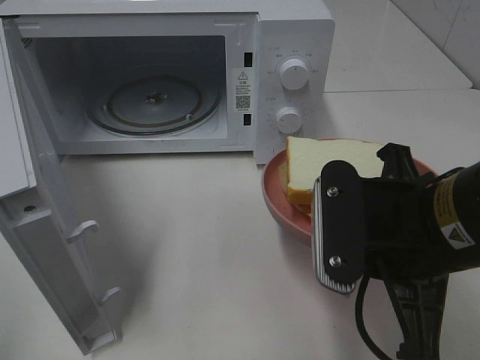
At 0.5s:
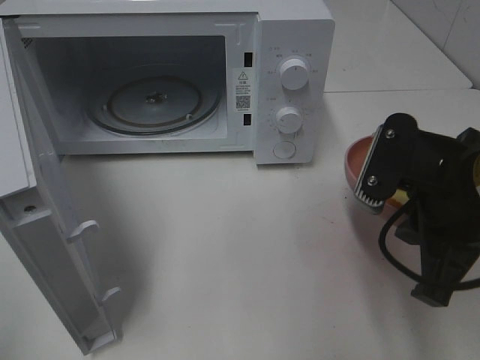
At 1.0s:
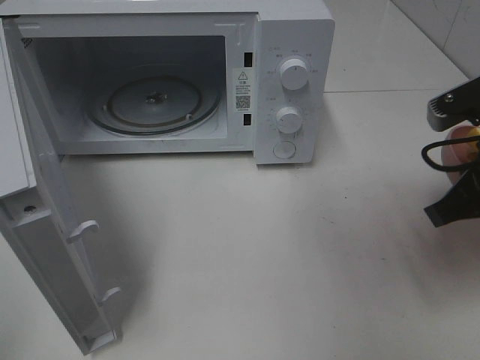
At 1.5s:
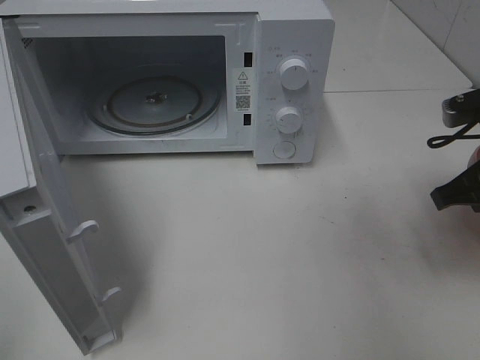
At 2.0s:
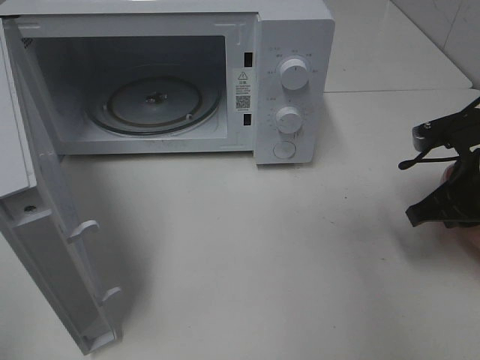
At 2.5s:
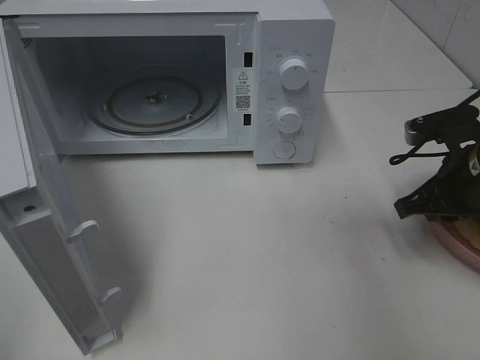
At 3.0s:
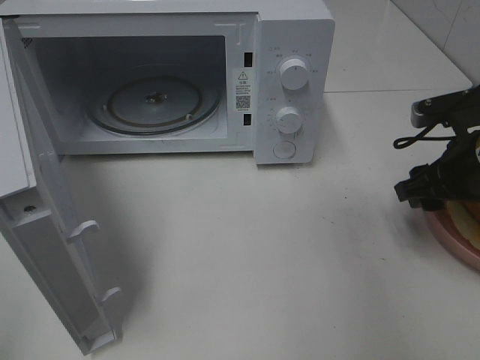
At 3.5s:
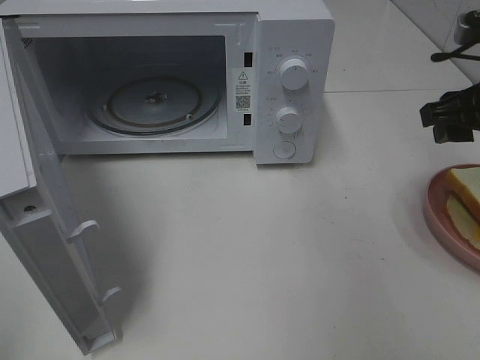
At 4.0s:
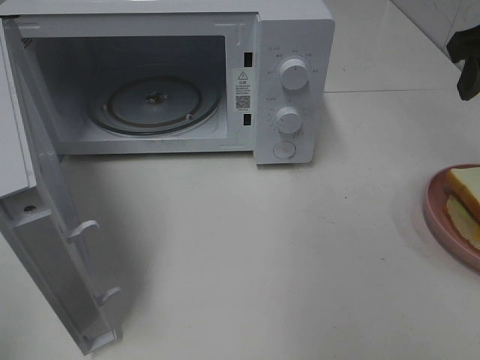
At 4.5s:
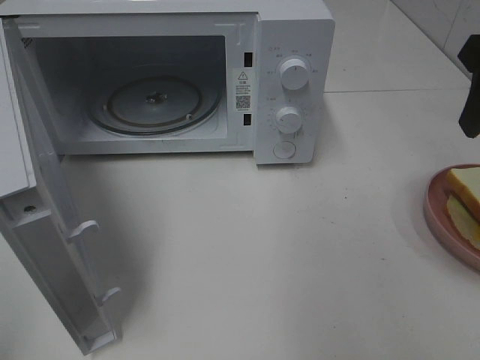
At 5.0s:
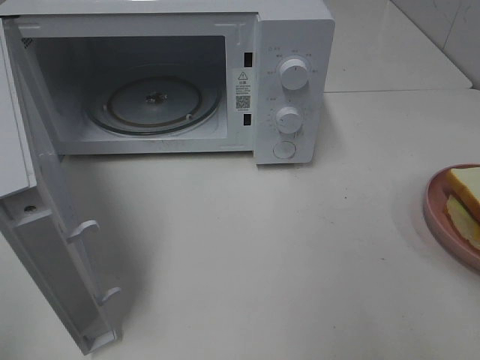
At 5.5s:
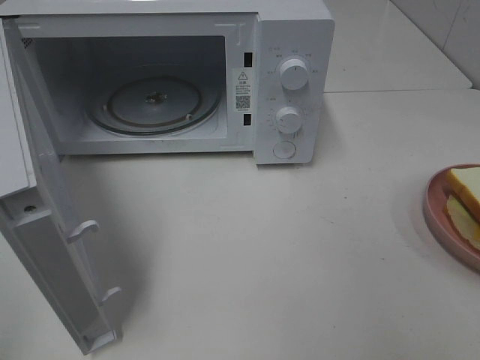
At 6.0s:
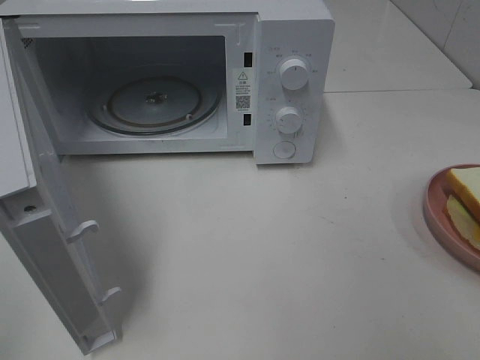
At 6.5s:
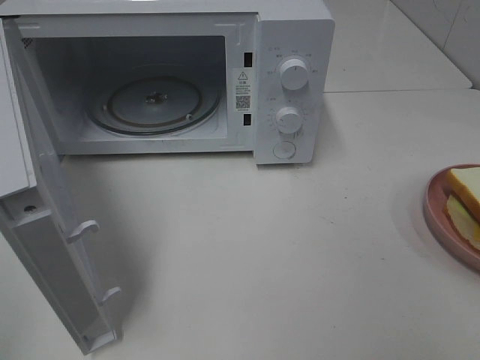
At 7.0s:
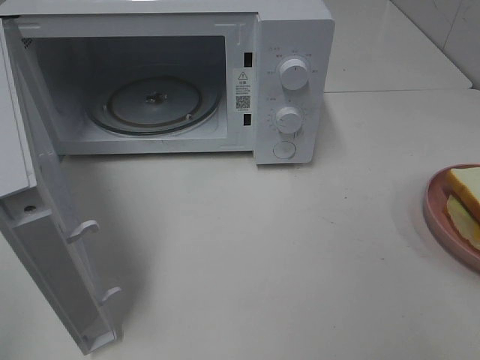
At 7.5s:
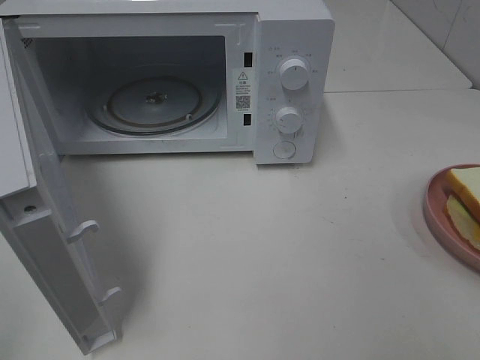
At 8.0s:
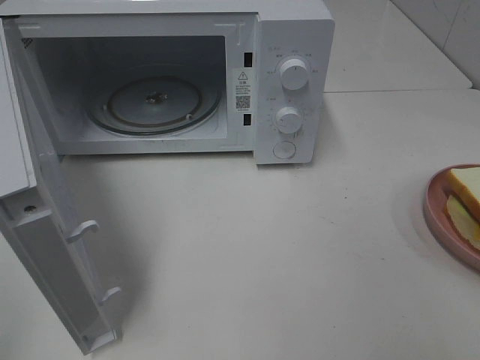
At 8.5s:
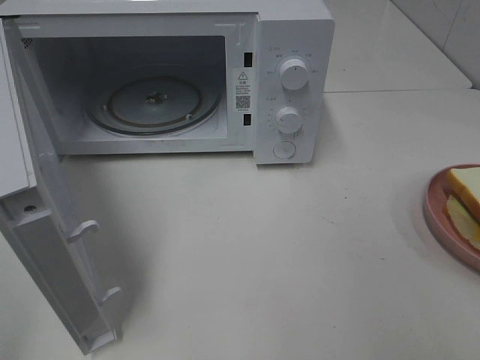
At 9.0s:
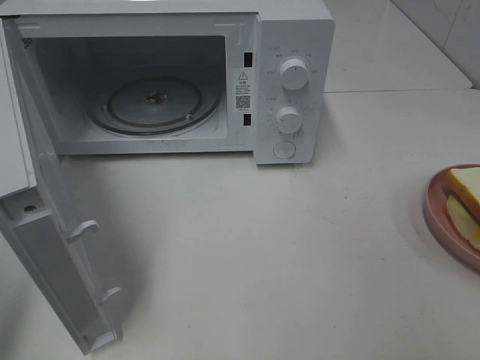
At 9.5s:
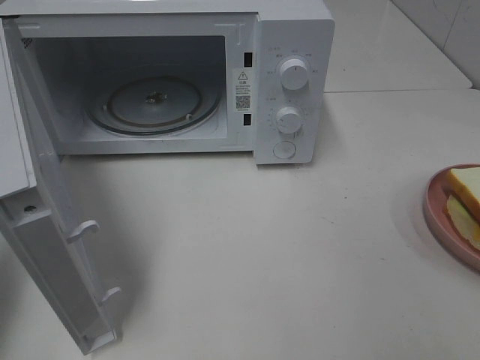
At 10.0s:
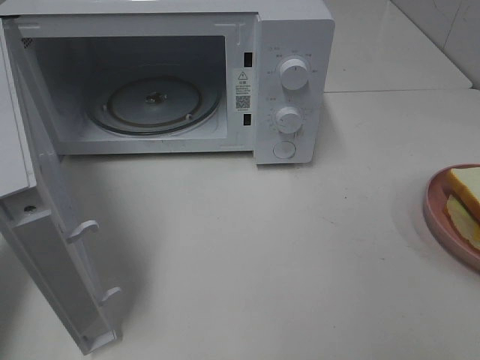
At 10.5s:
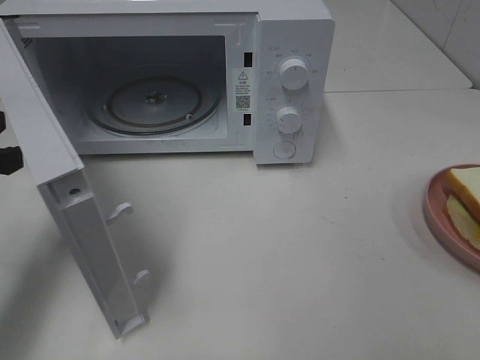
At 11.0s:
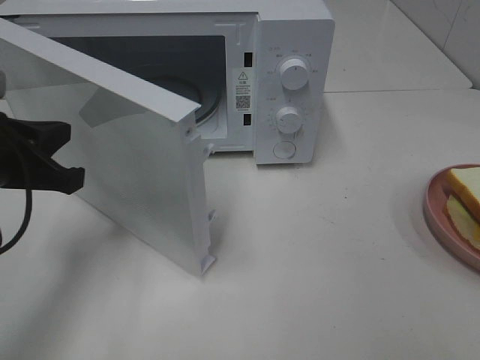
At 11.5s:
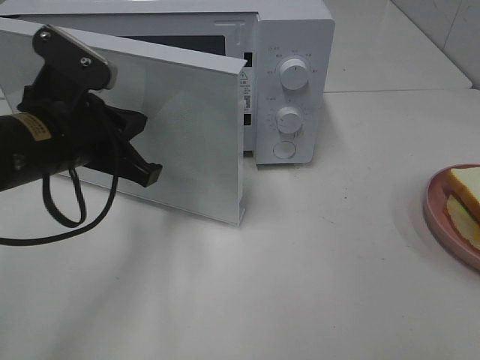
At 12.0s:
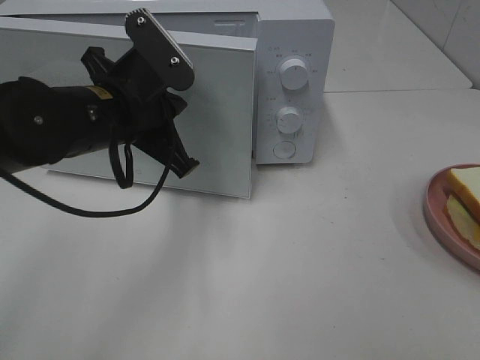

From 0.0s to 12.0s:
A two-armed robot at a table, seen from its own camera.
Task of the whole recording: Heat Sandwich.
Step, from 0.0s to 3.5s: Right hand: place the plate on the table.
From 0.0s to 2.0s: The right gripper heads to the right, forward and downward, covering roughly 20 cm.
From 2.0s to 4.0s: The right gripper shifts about 20 cm upward, and opens up.
From 4.0s to 6.0s: The right gripper travels backward by about 25 cm.
From 8.0s to 10.0s: The left gripper is displaced forward by approximately 20 cm, and closes its fingers.
From 10.0s to 12.0s: The left gripper shifts roughly 20 cm to the right.

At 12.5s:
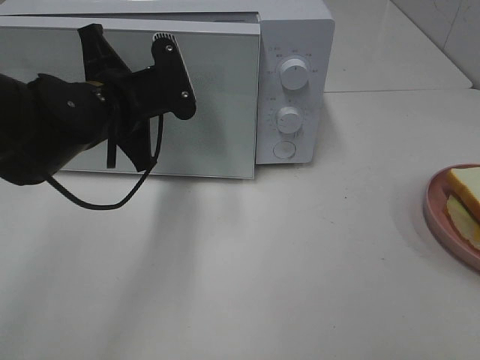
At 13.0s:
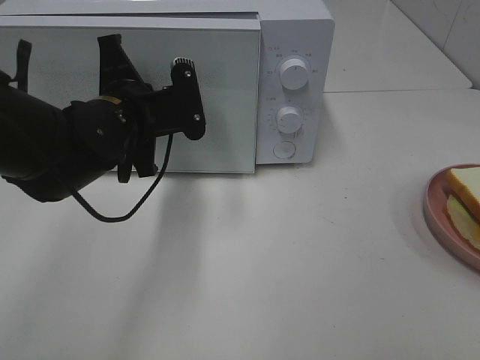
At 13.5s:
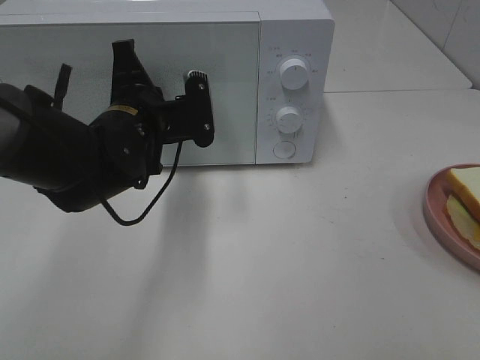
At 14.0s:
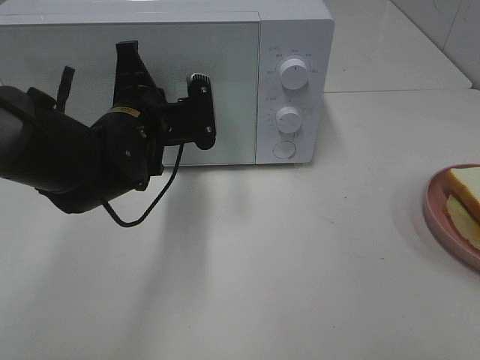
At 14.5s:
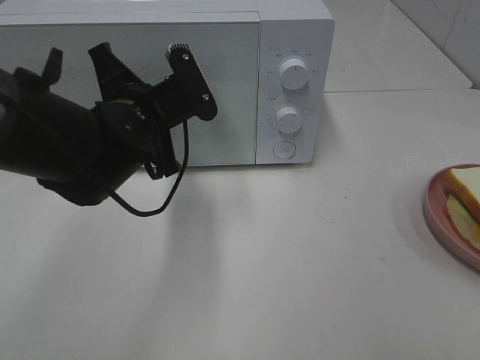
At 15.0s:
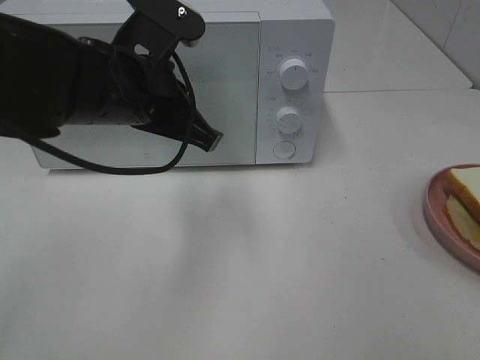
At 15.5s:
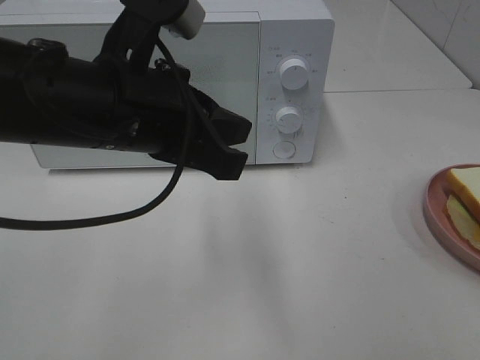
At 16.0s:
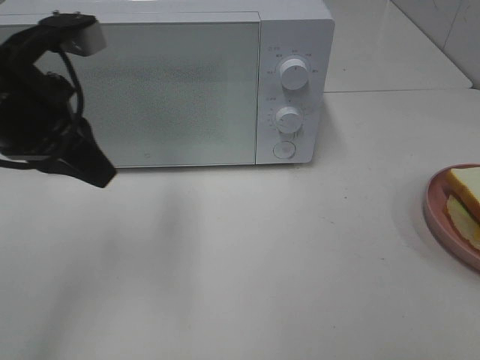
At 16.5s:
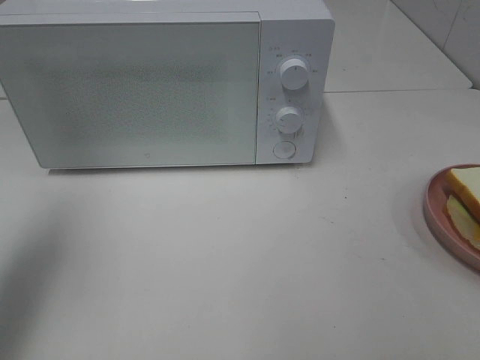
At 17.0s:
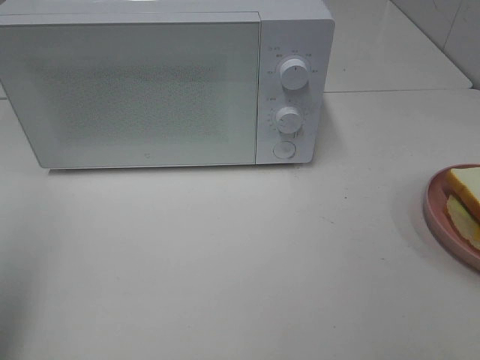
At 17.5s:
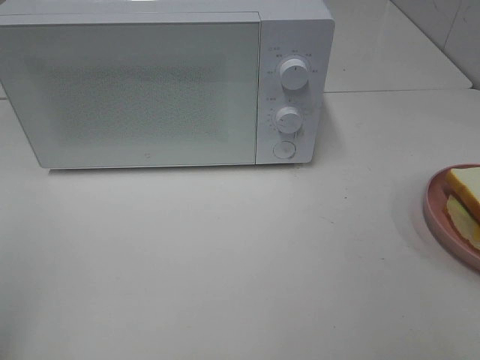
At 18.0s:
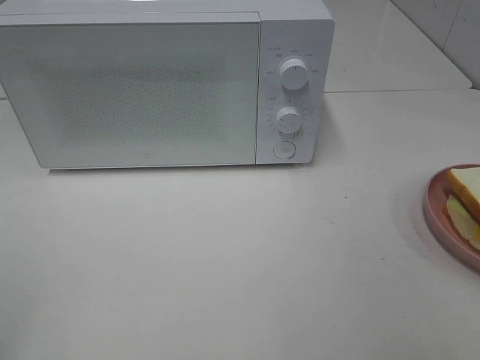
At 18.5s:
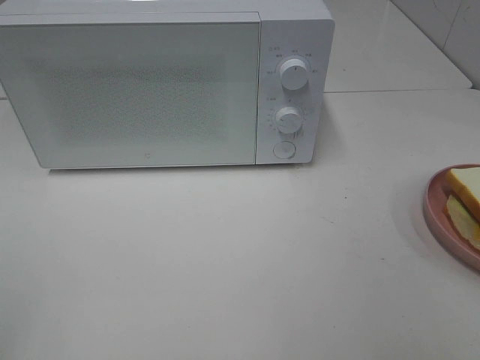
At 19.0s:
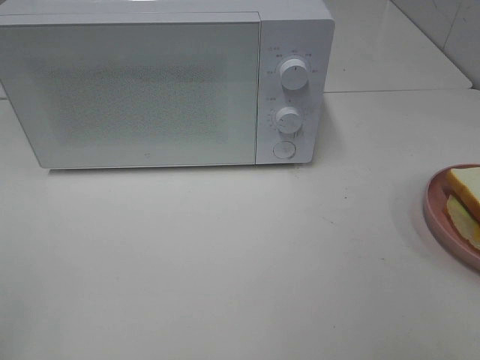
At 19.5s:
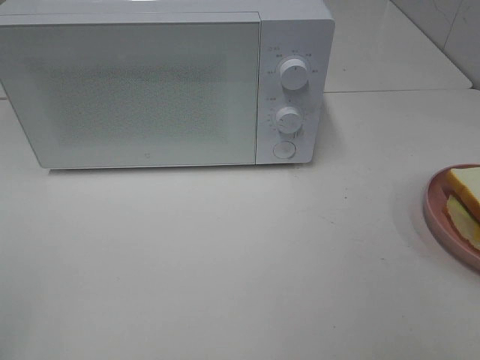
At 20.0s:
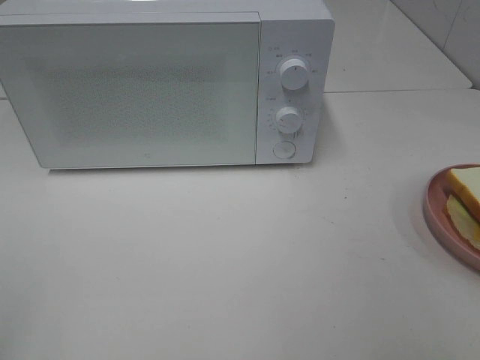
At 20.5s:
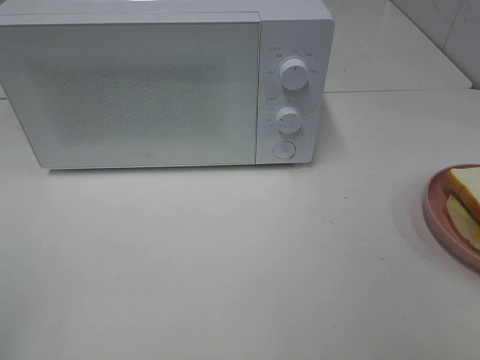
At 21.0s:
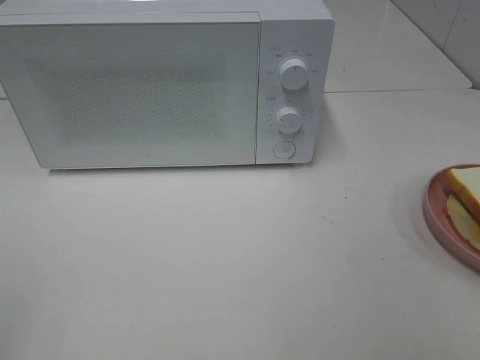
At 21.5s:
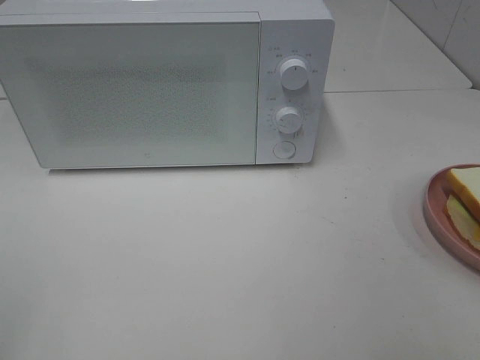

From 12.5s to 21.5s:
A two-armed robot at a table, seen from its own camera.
Task of the whole recording: Heat Sandwich.
Step, from 12.5s to 15.5s: Left hand: close the microwave door.
From 12.5s to 14.5s: The grippers move only a little.
From 14.5s to 17.0s: The left gripper is displaced to the left, backward and upward by some 35 cm, and opens its fingers.
From 17.0s to 19.5s: The left gripper heads backward, covering some 10 cm.
From 19.5s to 21.5s: The two grippers keep their place.

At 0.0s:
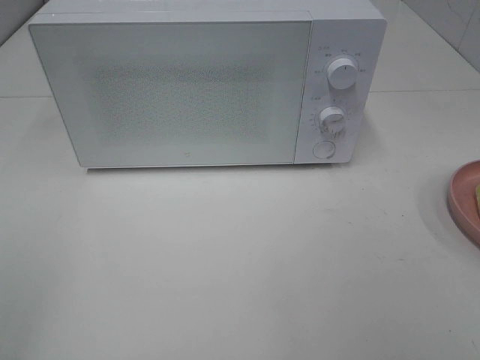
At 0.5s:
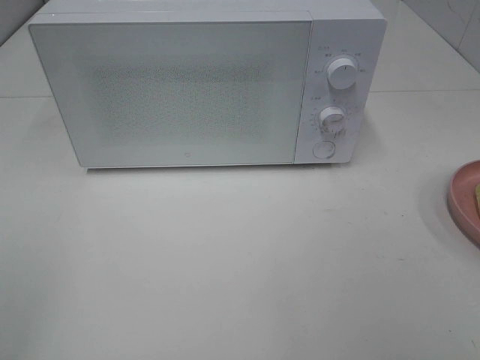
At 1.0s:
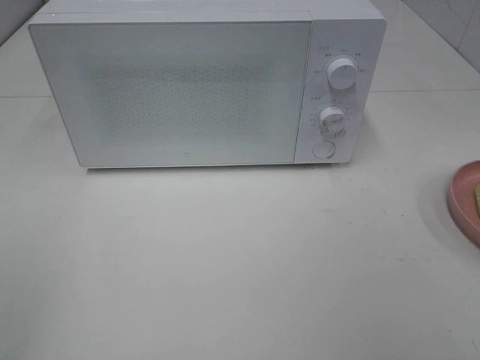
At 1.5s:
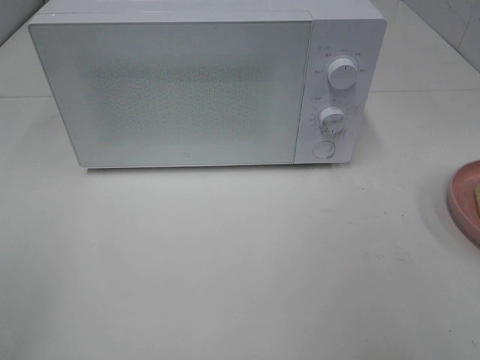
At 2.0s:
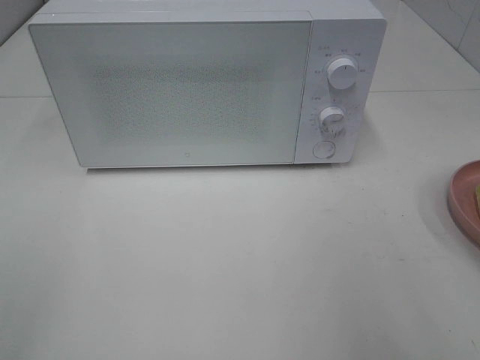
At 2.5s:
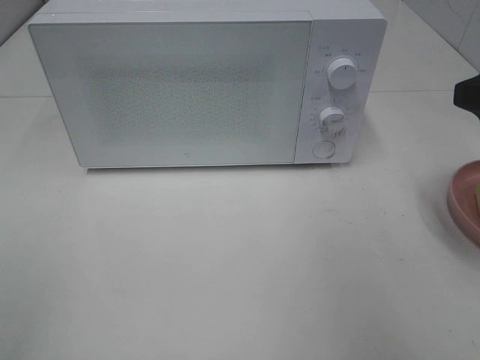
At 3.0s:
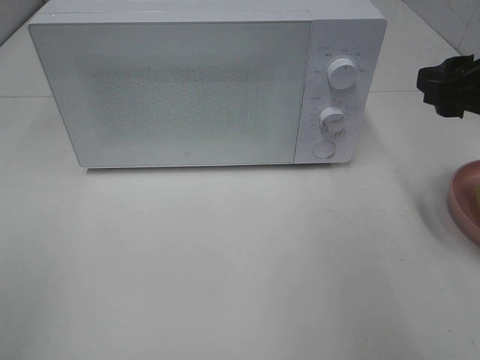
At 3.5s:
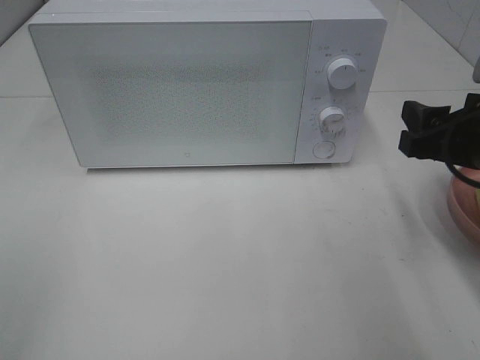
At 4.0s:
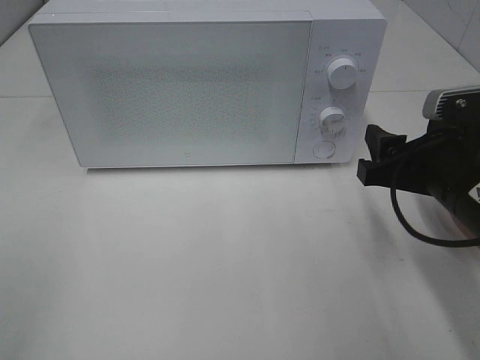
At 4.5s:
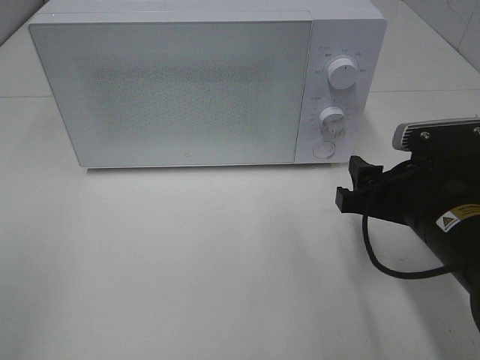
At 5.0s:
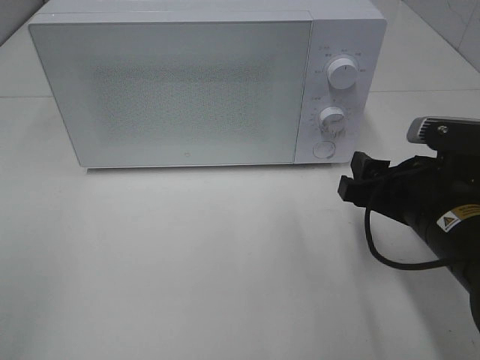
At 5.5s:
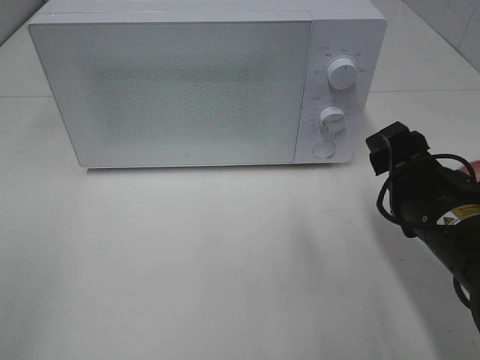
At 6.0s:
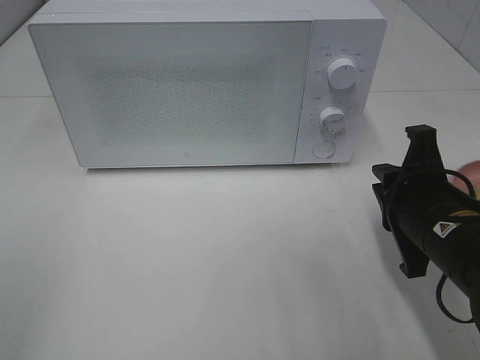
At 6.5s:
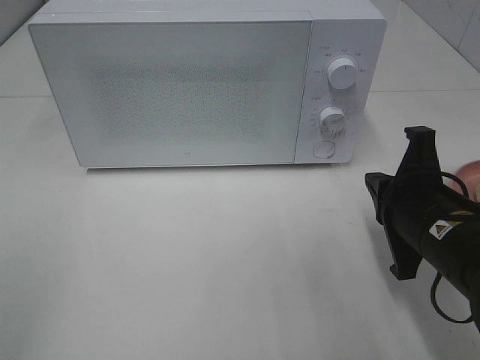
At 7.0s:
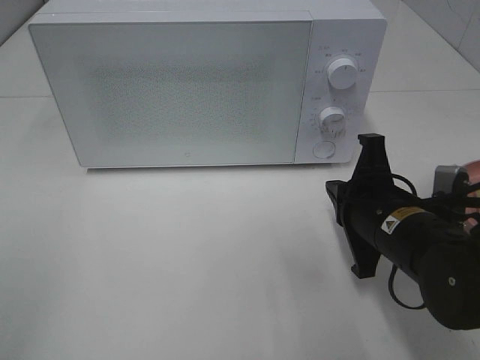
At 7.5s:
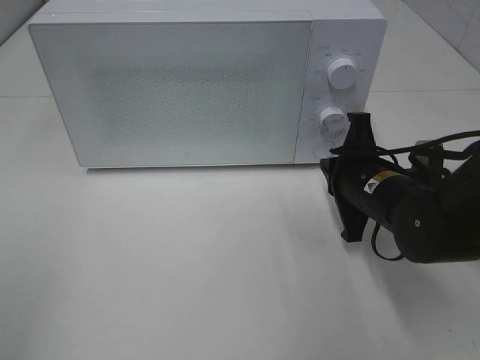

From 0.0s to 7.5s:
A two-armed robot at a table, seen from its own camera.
Task of the whole recording: Heat Sandwich.
From 2.0s to 4.0s: The right gripper moves downward, forward and to the left, some 15 cm.
From 5.5s to 7.5s: The right gripper goes about 10 cm forward, and closes its fingers.
